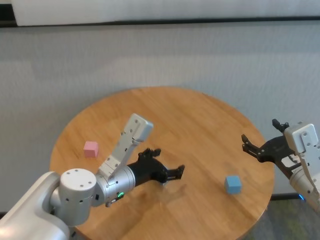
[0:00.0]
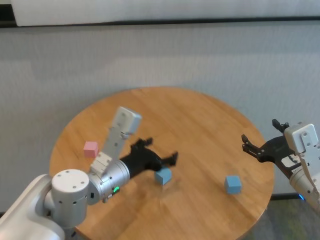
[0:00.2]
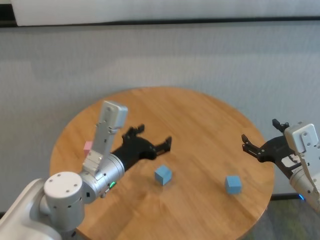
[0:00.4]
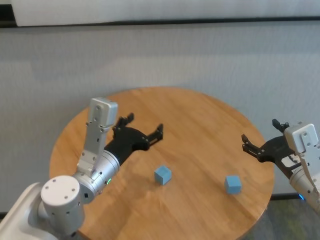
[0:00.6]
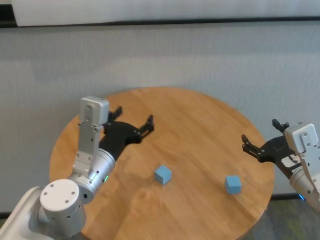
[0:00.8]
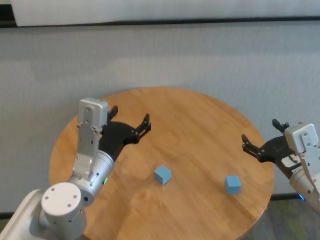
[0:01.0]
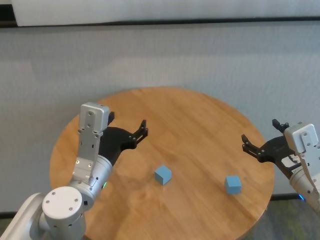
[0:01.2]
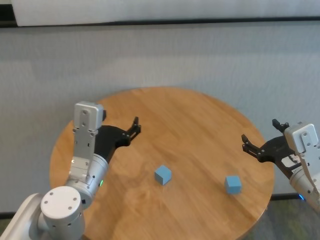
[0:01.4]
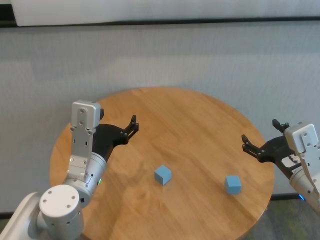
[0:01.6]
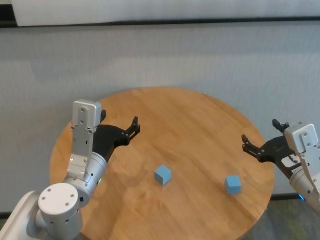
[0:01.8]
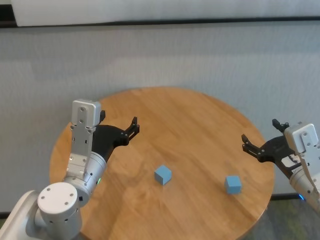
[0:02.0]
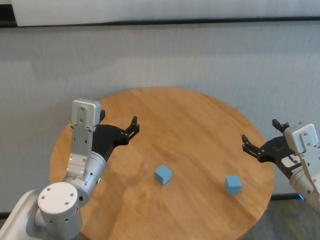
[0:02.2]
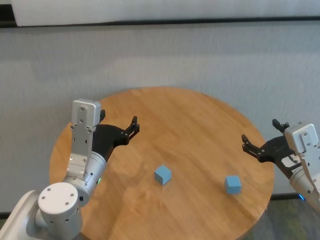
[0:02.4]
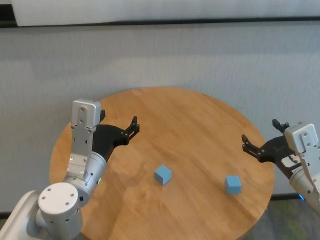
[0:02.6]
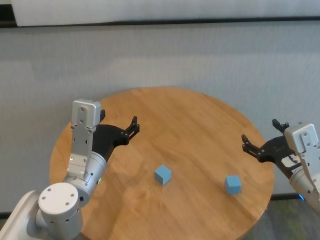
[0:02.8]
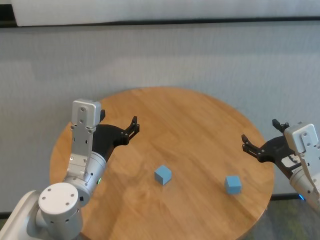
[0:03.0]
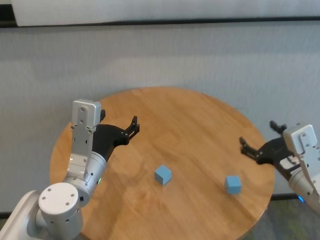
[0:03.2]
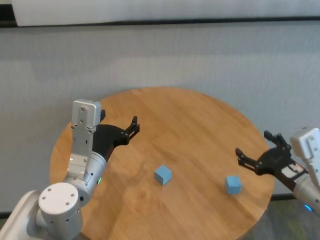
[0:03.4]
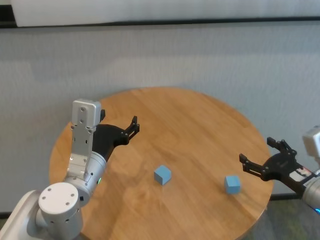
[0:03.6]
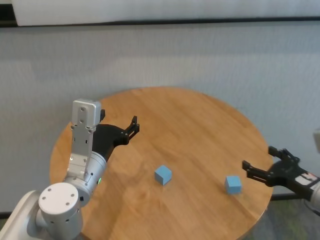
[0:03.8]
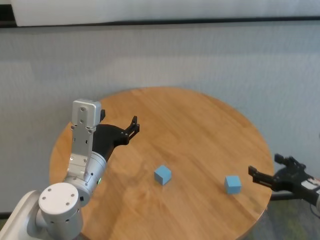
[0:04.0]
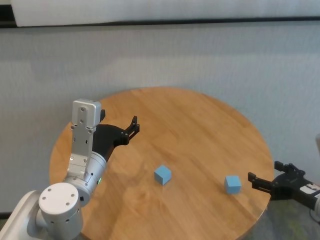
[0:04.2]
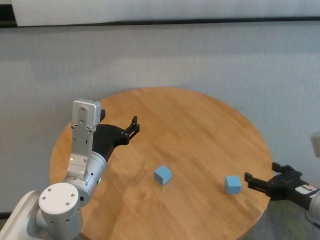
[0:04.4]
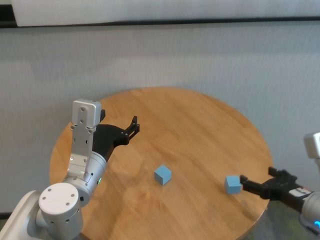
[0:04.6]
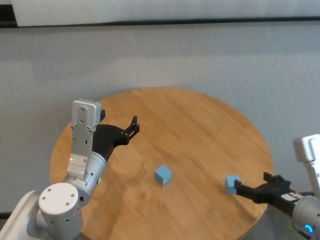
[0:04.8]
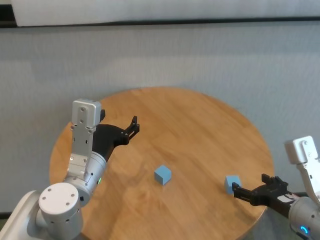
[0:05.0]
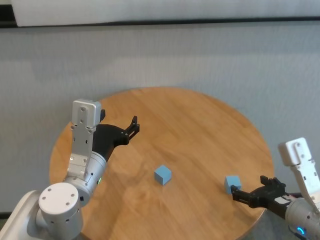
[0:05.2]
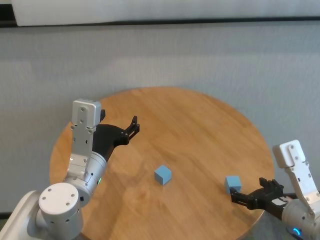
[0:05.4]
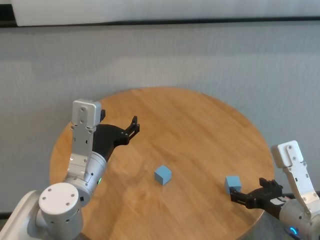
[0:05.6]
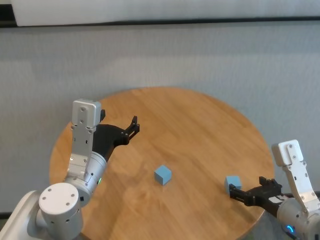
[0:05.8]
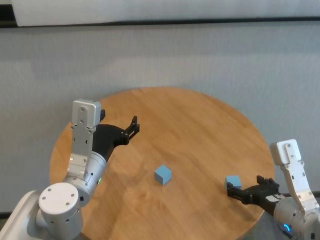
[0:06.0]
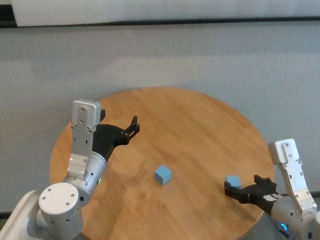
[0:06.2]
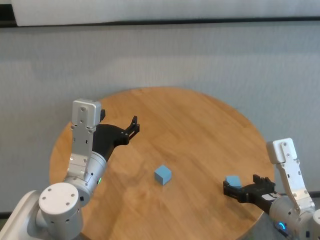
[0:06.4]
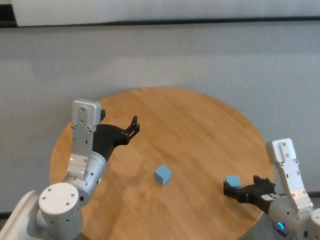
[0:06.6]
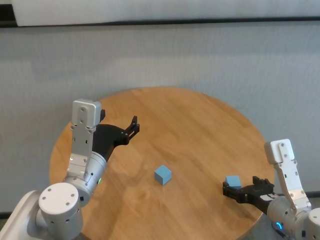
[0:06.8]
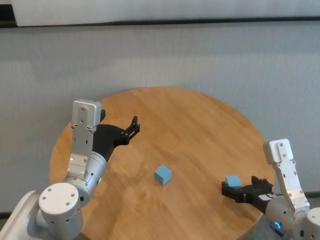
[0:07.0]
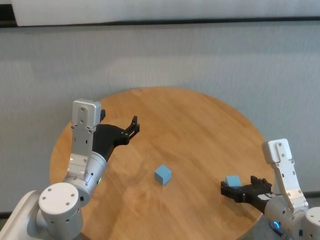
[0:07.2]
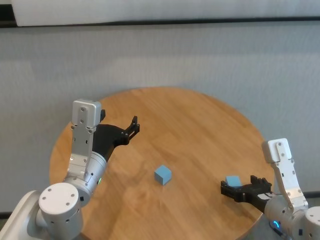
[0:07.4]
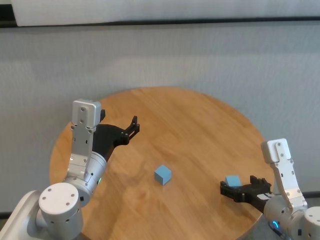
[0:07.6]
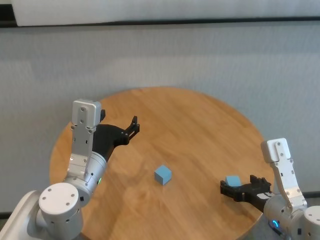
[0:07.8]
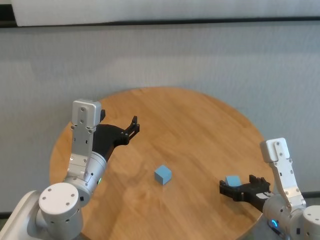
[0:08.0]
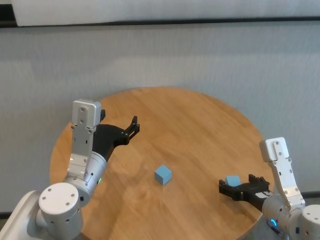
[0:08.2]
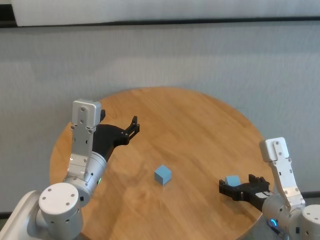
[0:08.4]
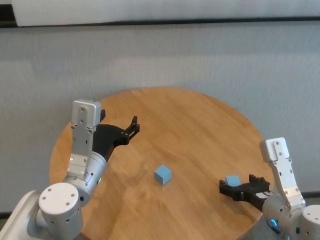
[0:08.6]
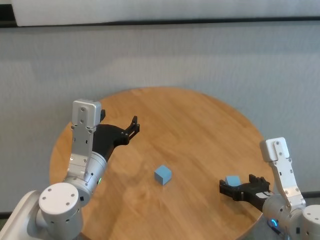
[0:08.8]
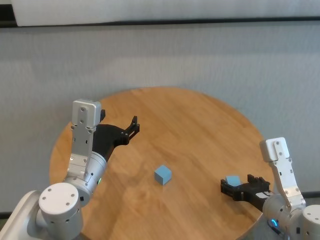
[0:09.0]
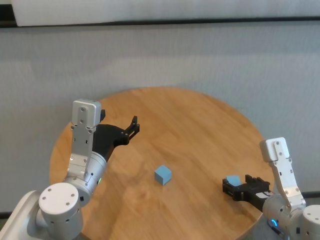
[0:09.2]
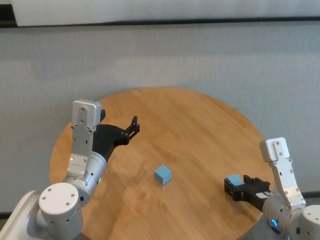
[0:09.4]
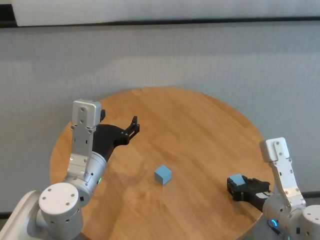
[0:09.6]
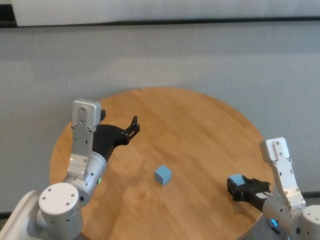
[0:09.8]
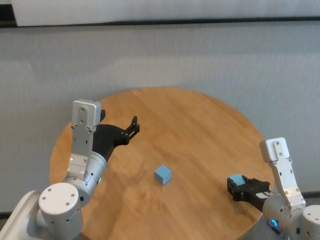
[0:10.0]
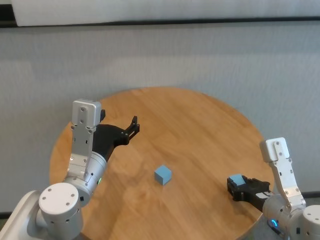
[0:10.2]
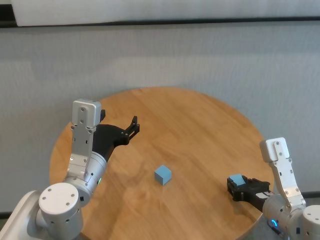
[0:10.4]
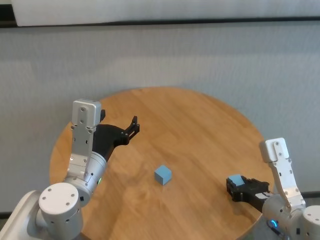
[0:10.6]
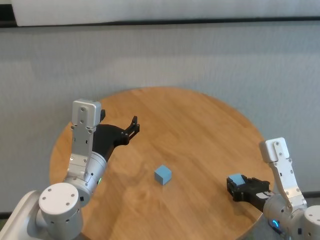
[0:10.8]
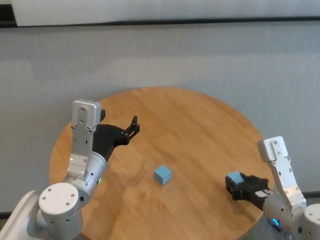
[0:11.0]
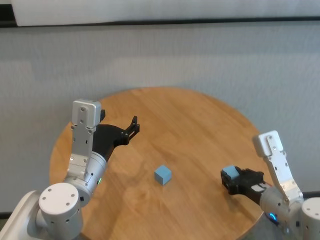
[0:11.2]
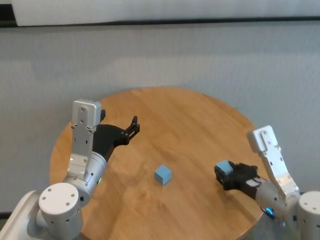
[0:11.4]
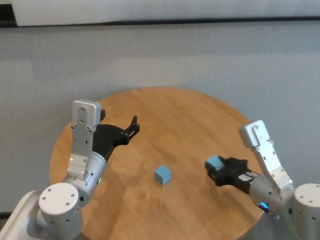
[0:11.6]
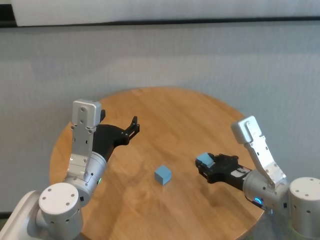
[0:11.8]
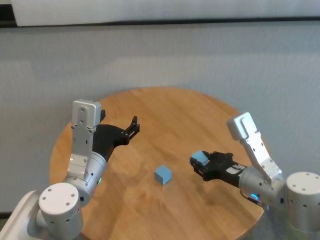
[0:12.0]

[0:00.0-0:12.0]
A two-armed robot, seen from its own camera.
Task of the whole recording: stack building blocks on the table.
Step, 0:00.0 to 0:09.8: Grasp the blue building block with right gripper.

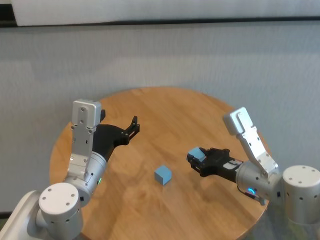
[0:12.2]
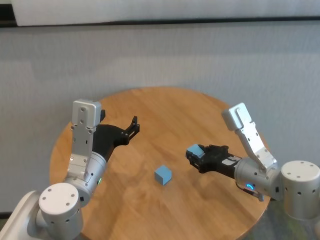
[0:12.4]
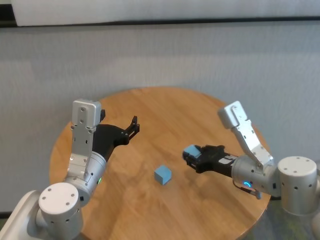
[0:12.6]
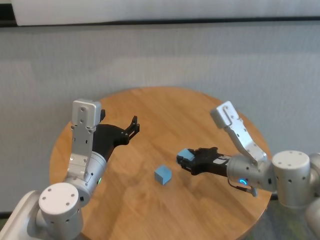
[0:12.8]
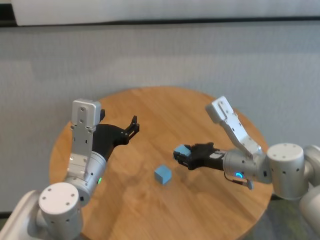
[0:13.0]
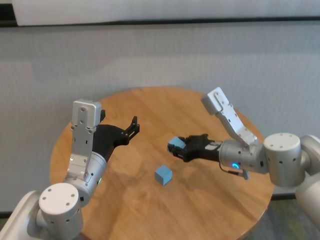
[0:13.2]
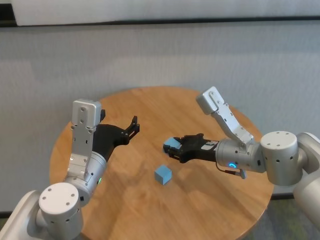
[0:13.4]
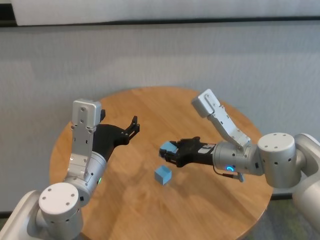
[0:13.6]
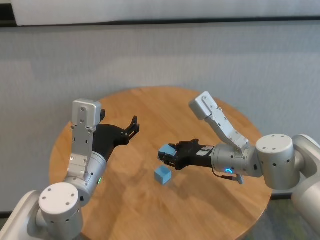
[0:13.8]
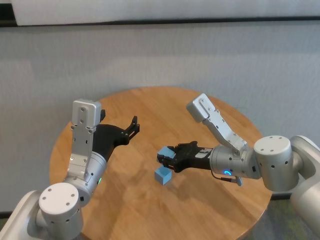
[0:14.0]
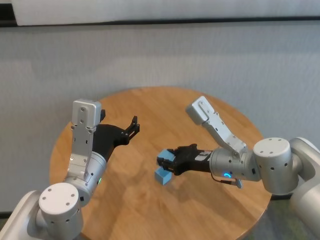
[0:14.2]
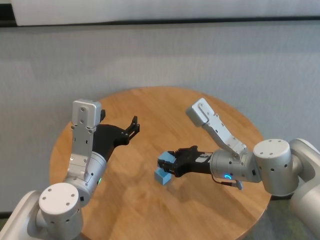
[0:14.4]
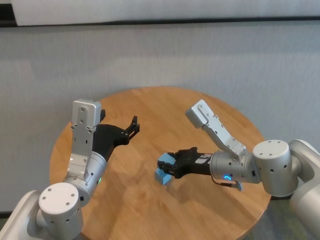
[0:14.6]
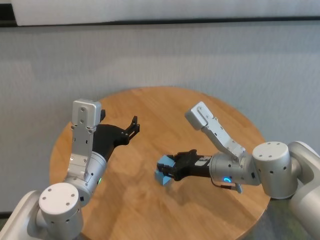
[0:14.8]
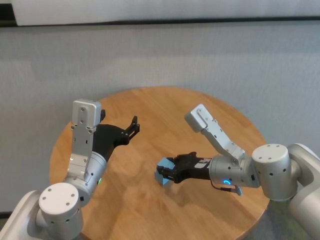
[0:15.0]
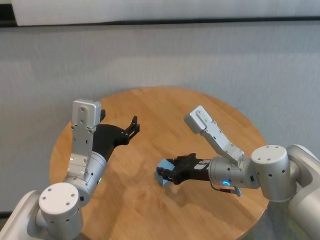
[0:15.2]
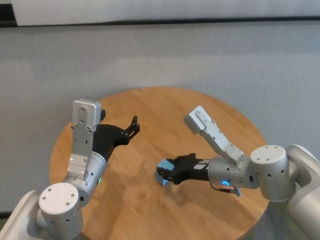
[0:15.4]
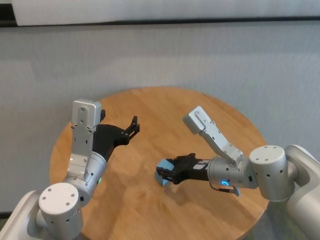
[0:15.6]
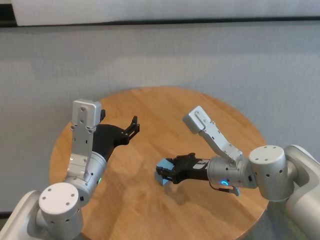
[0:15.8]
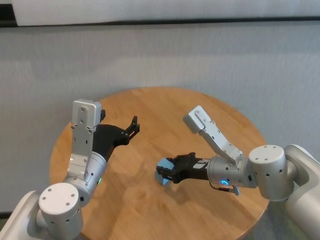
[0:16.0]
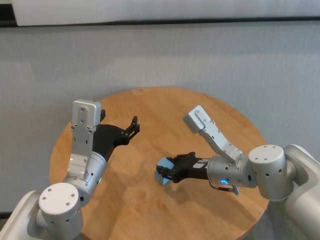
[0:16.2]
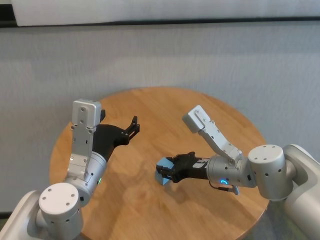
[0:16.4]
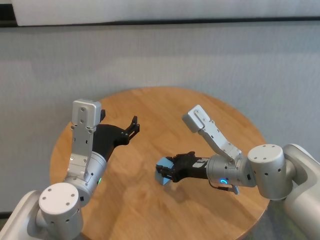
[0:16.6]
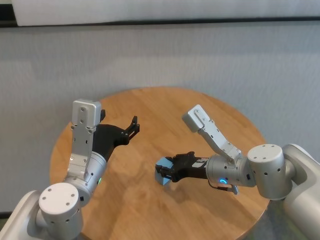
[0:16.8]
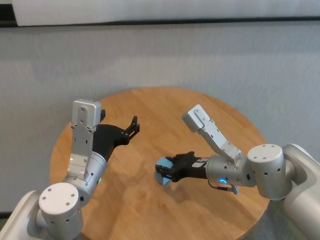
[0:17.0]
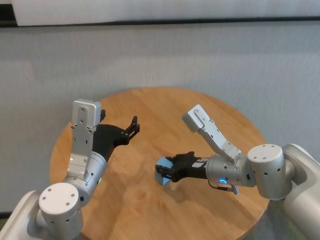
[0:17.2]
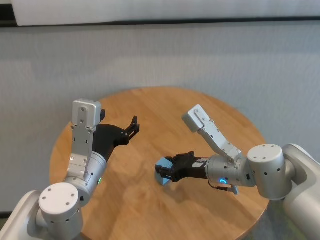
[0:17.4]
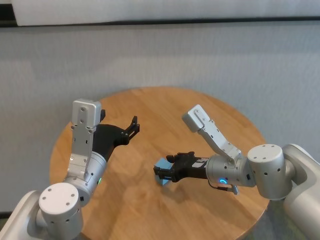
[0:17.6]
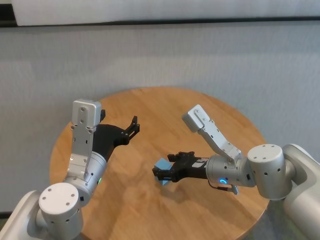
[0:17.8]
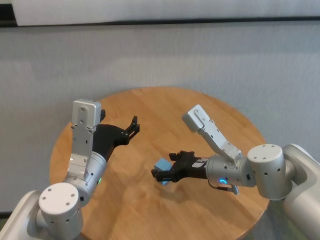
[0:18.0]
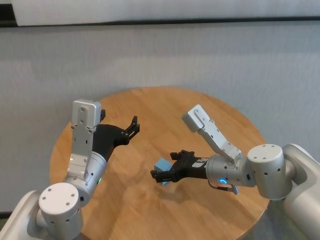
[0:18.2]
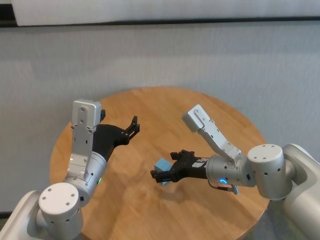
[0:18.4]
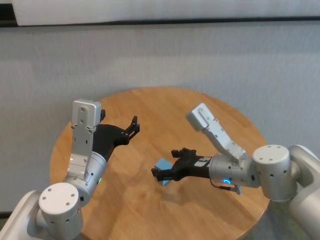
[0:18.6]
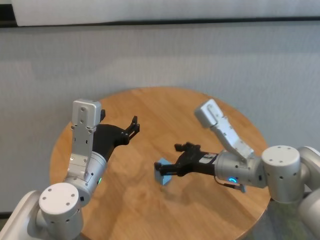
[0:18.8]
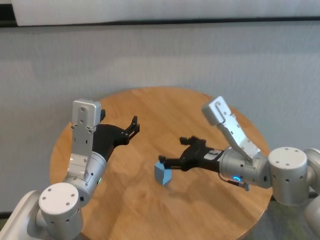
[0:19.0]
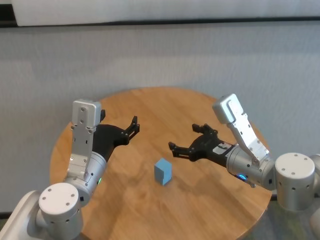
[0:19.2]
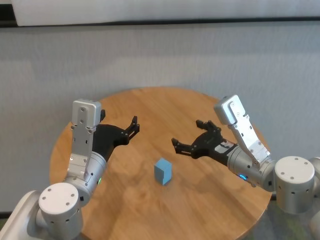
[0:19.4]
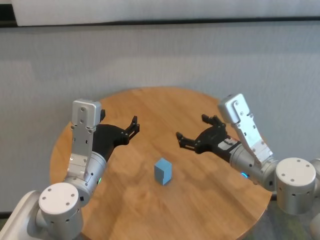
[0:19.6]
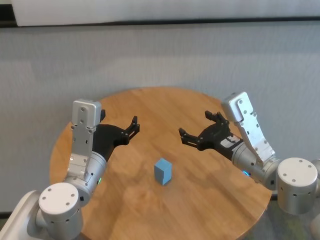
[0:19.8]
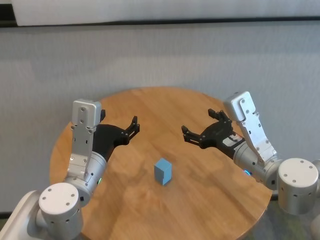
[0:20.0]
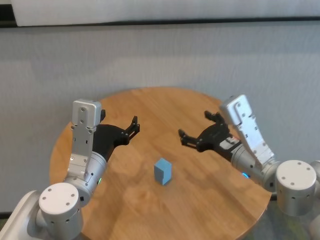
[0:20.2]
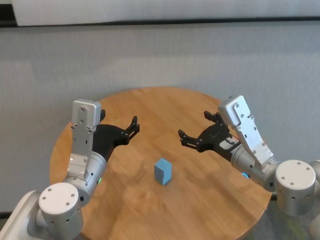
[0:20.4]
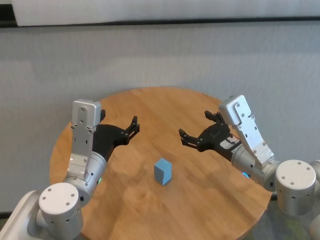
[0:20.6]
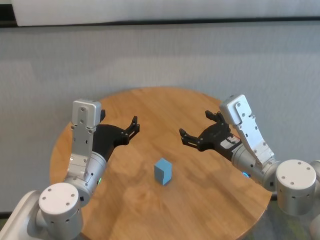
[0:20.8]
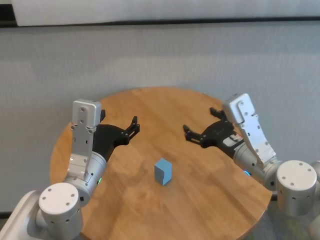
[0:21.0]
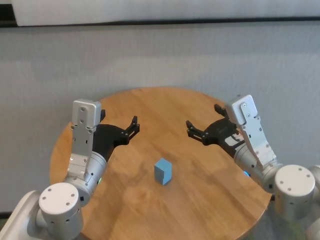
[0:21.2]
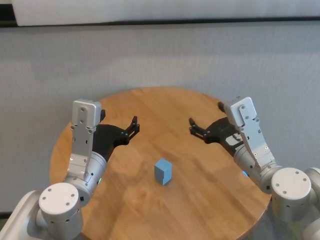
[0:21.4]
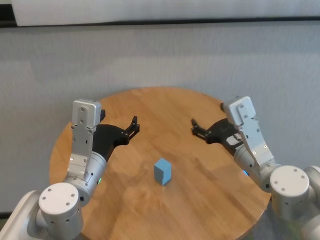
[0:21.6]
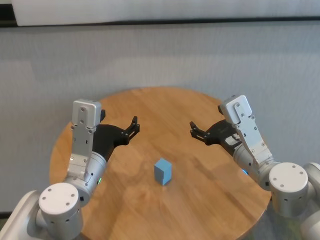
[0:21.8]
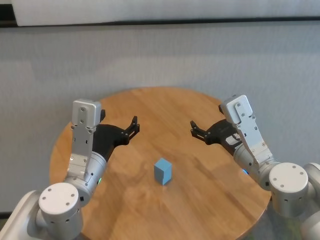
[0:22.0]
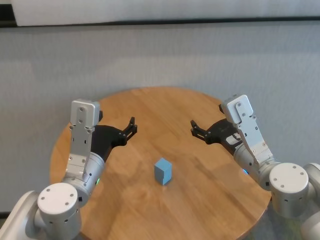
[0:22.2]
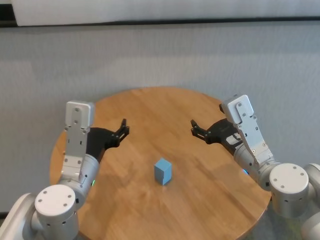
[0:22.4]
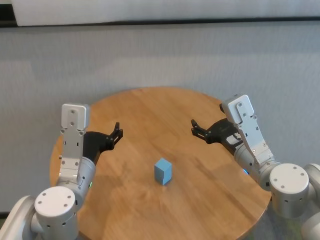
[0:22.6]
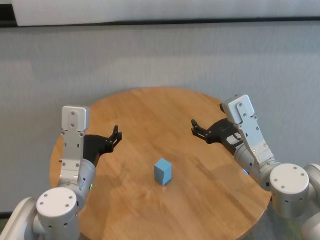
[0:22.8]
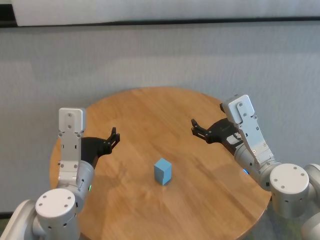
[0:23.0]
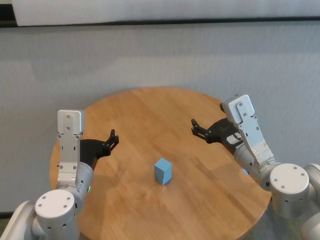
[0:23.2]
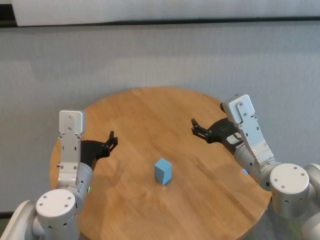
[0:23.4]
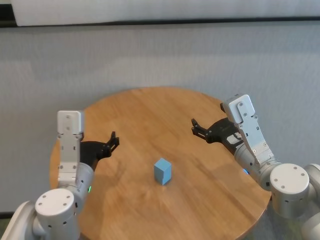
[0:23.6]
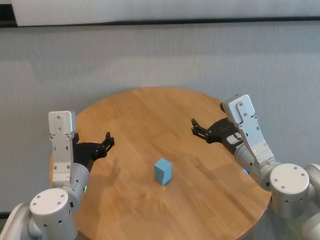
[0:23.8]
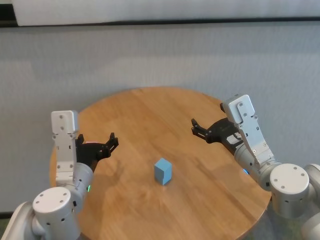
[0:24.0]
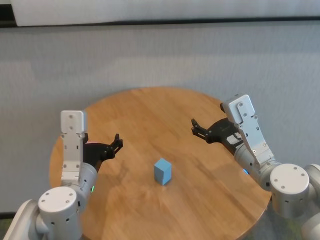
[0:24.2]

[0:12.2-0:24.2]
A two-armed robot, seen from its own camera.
Task of the whole recording: stack building blocks on the table.
Step, 0:12.2 to 0:17.6: Place the blue building block on the blue building blocks with right gripper.
